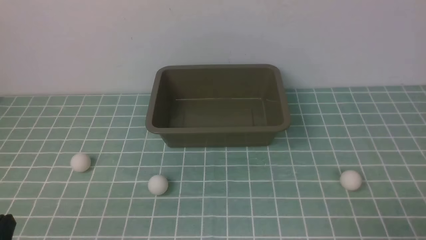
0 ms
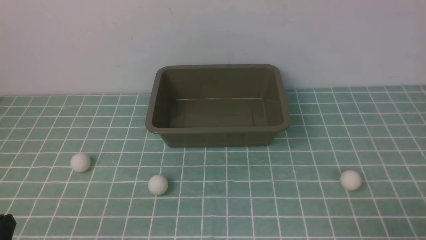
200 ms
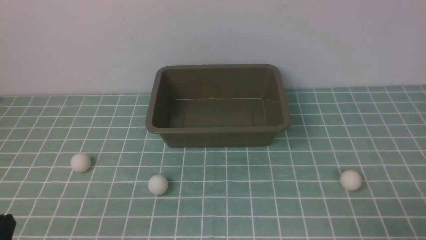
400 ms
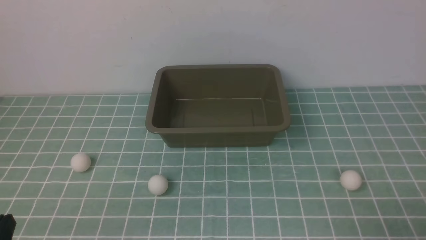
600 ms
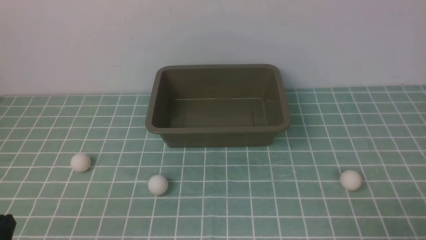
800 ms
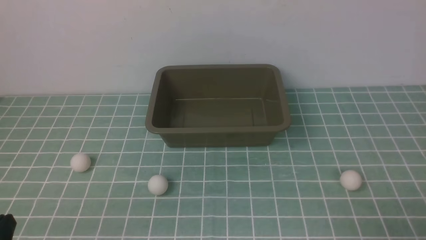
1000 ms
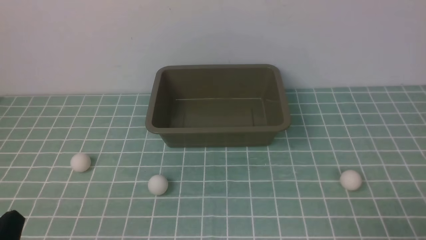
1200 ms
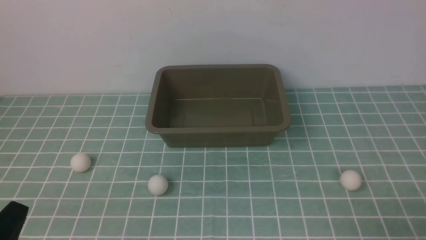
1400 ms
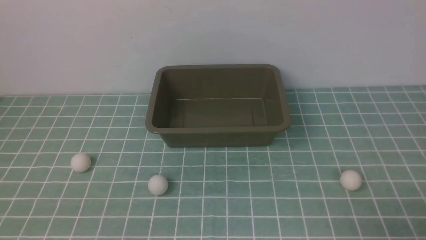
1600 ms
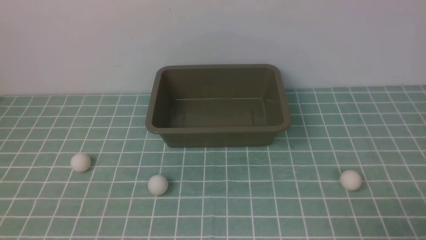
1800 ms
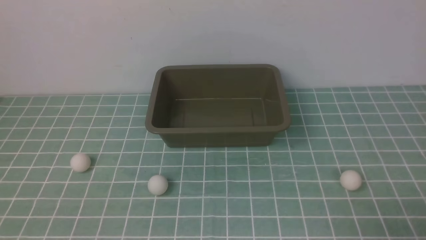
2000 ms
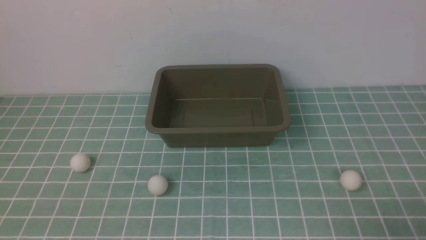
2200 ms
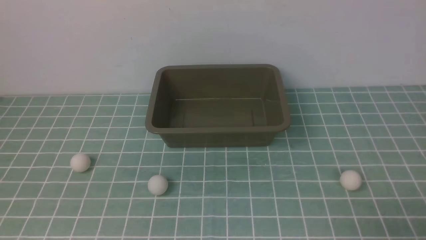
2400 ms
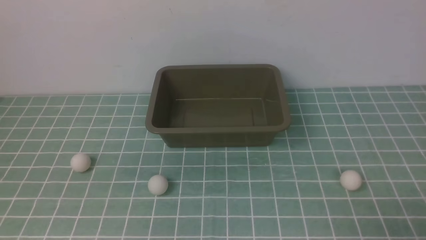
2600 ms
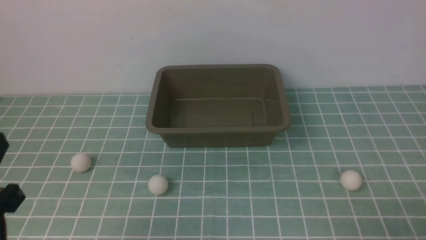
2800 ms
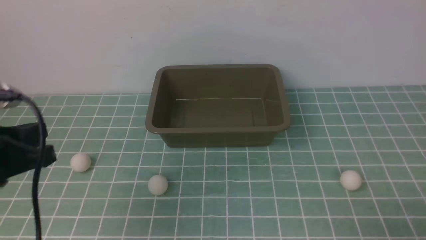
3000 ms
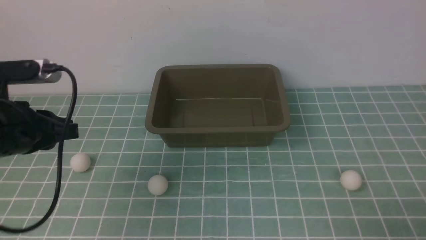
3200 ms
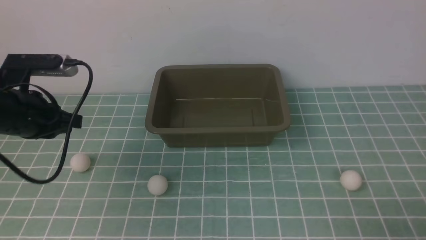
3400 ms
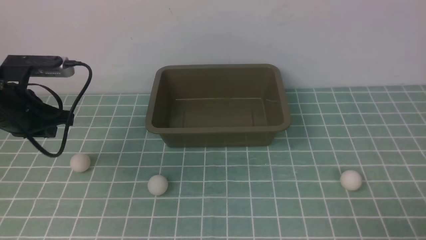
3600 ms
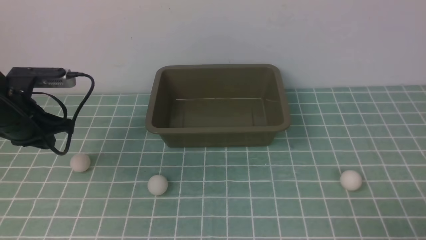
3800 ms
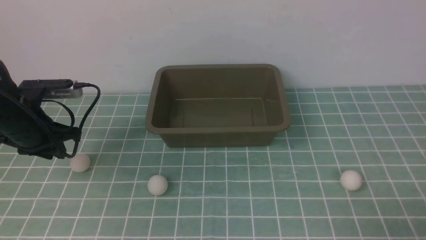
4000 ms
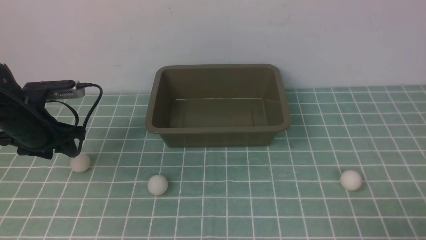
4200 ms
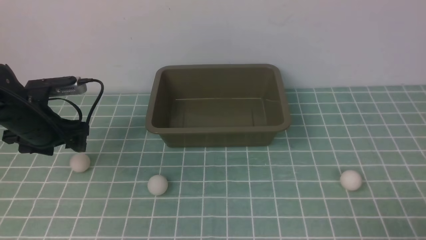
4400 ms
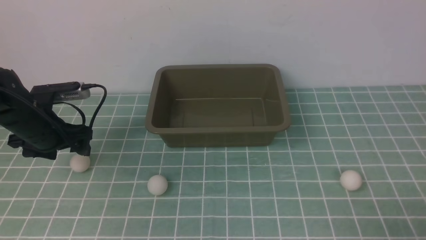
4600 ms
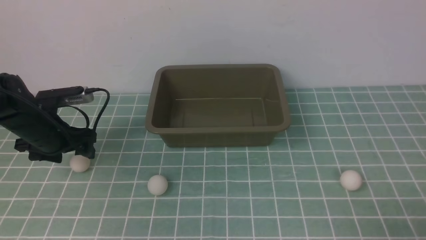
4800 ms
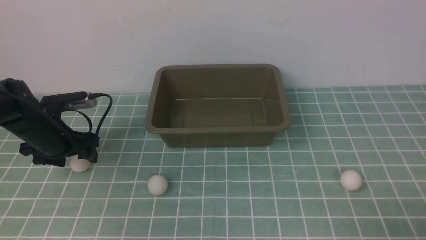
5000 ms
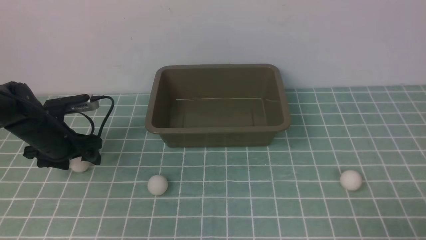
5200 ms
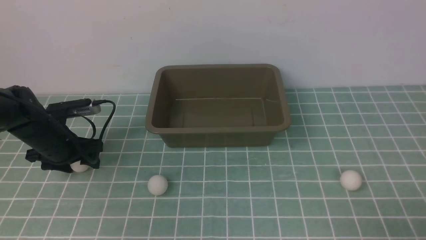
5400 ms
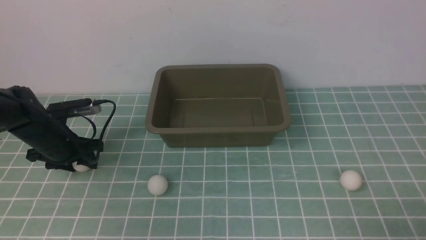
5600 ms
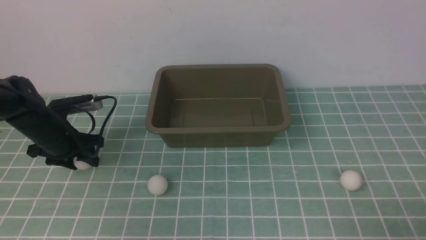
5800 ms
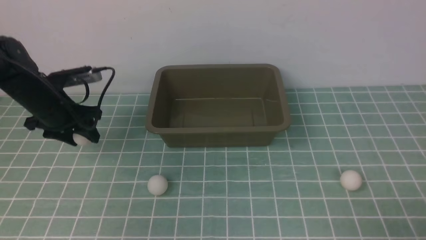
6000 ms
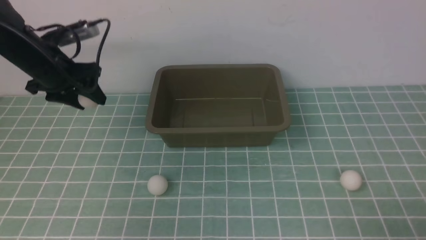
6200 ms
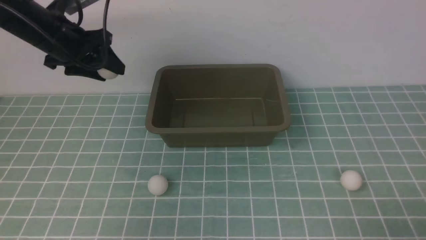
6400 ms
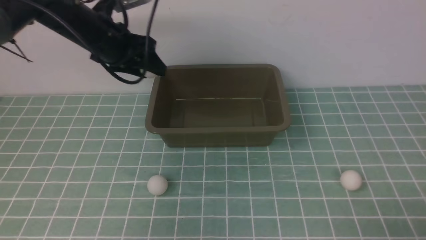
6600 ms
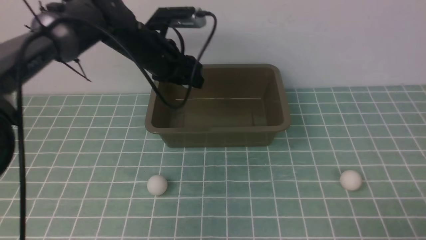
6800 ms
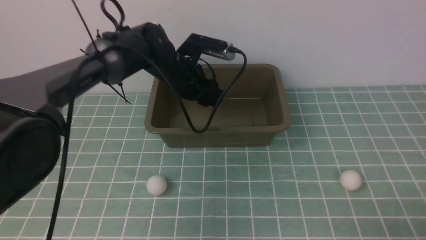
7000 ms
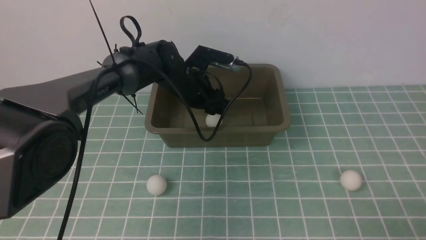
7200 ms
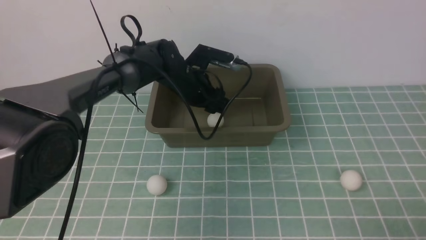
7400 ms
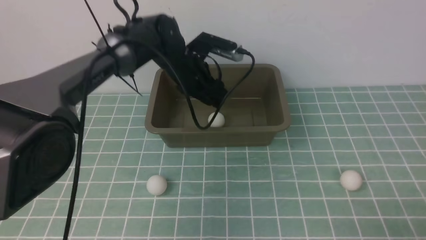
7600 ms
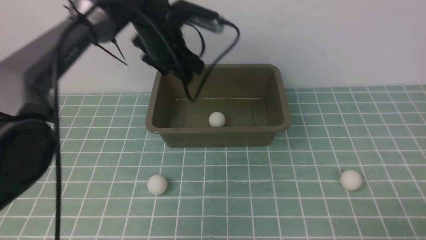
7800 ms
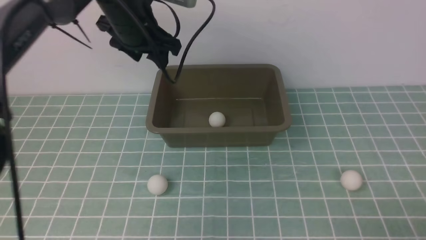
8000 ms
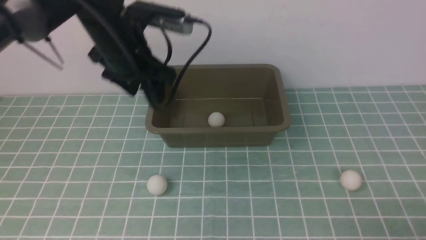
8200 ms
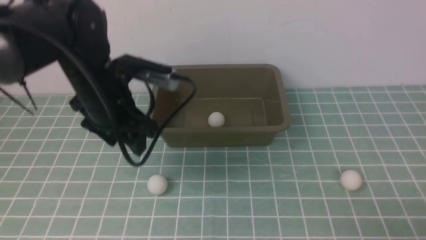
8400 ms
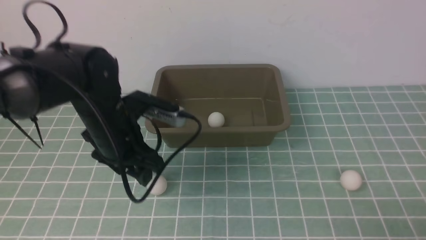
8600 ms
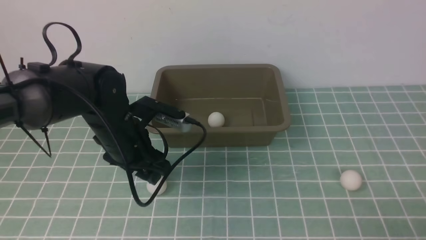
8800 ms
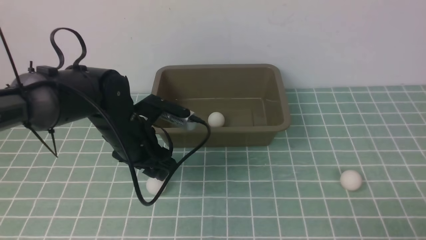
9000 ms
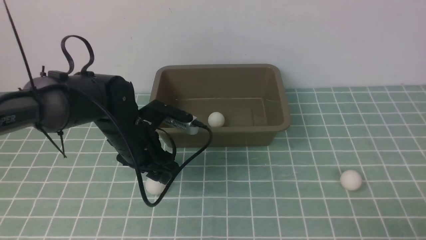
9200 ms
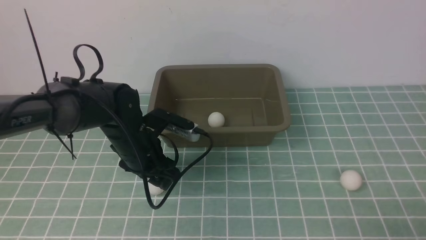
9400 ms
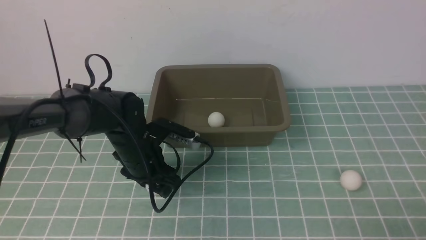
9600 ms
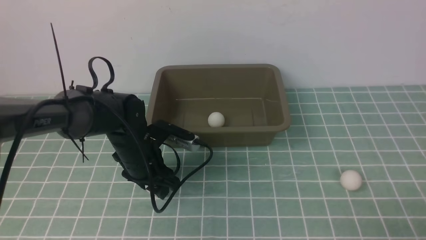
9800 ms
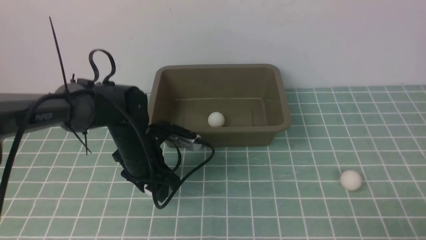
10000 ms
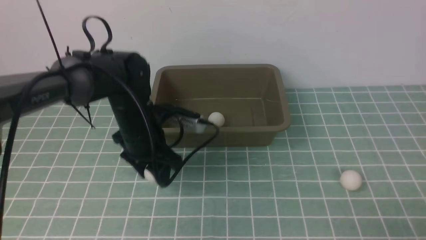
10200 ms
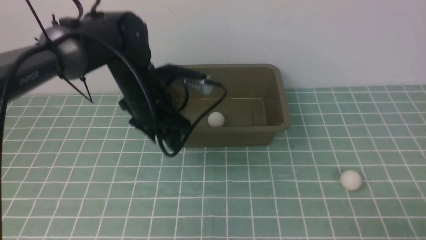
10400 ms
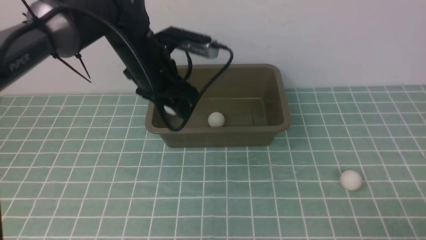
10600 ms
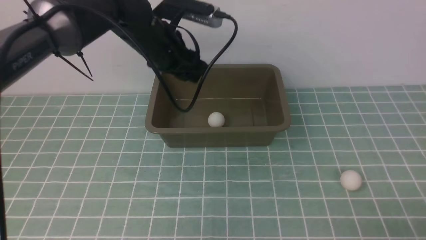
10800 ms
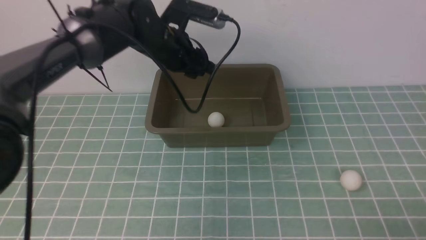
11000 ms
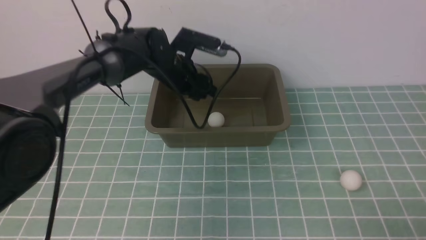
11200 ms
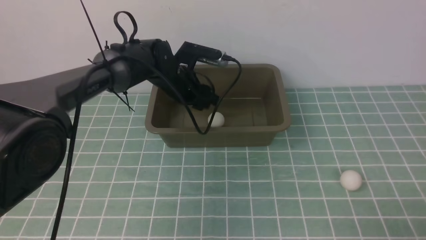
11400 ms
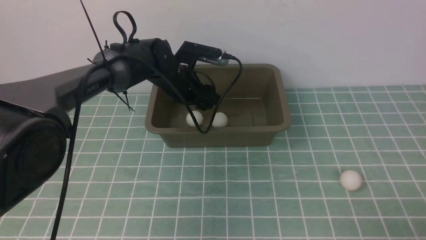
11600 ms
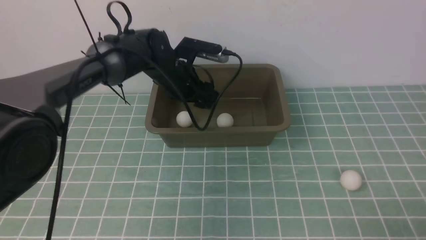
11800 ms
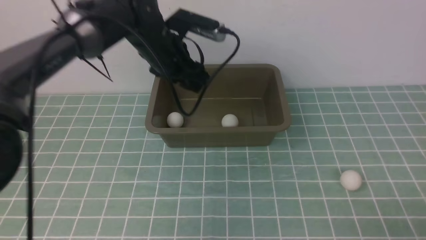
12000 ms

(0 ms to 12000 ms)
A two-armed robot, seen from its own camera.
Step, 0 ms - 6000 ms: use the left arm to clamp the table tennis ball closest to it.
Step, 6200 ms - 7400 ms: use the left arm to put the table tennis ball into the box.
Step, 7600 ms - 10200 ms: use the left arm to clamp the table tennis ball closest to it.
Step, 10400 ms - 11600 ms: use the left arm to put the table tennis ball into the box.
1600 ms - 3000 ms: The left gripper travels forward and upward by roughly 20 cm.
3000 ms - 4400 ms: The left gripper shifts about 20 cm forward and downward, and opens up.
4400 ms - 6000 ms: The left gripper is displaced upward, to the right and forward by about 15 cm, and closes its fingers.
6000 ms - 7600 ms: The left gripper goes about 10 cm to the right and backward.
7600 ms - 9000 ms: The left gripper is displaced downward by roughly 15 cm.
9000 ms - 10400 ms: The left gripper is displaced upward and forward by roughly 15 cm.
10400 ms - 12000 ms: The left gripper is displaced upward and backward by about 15 cm, and closes up.

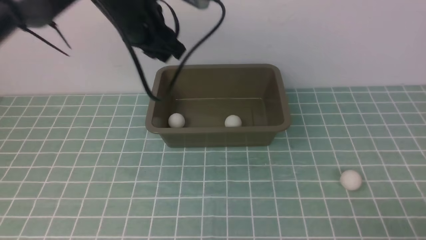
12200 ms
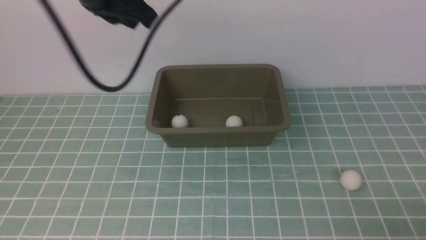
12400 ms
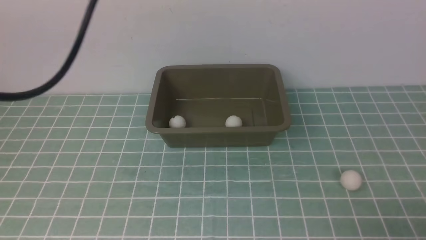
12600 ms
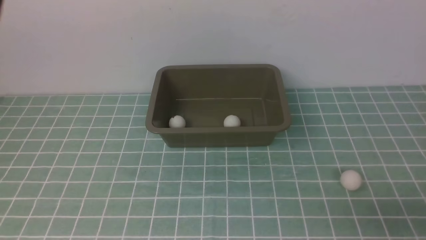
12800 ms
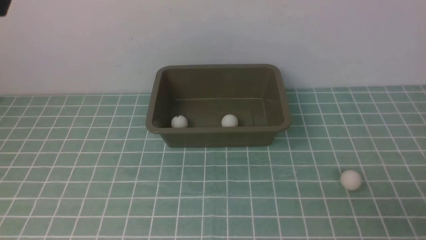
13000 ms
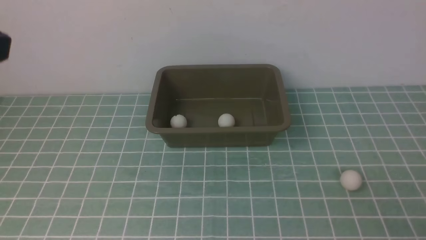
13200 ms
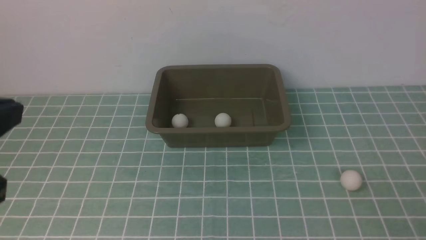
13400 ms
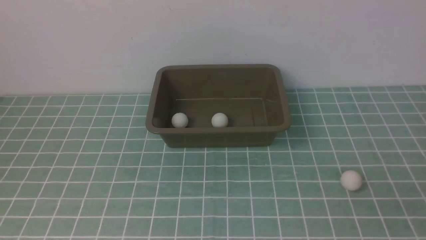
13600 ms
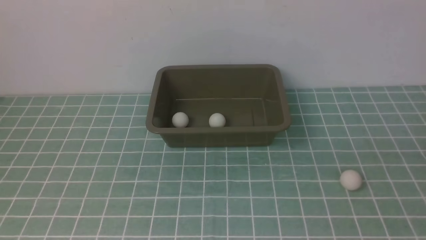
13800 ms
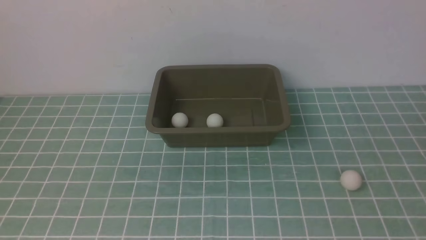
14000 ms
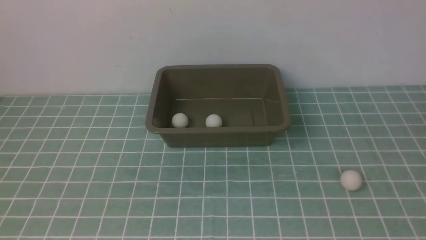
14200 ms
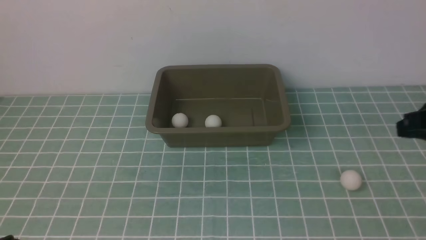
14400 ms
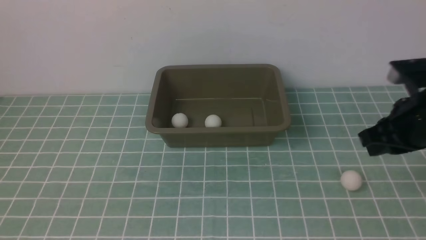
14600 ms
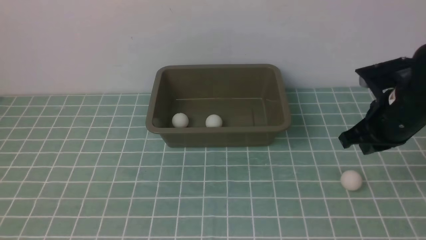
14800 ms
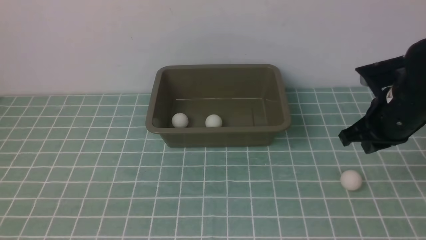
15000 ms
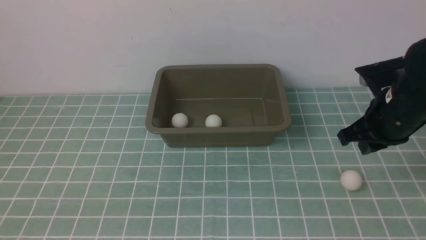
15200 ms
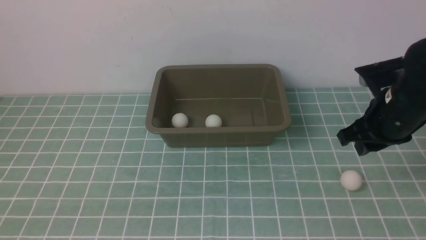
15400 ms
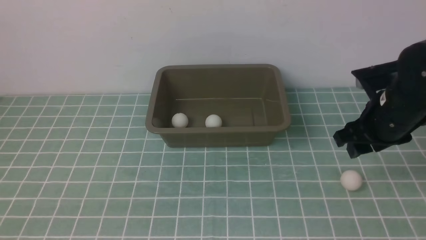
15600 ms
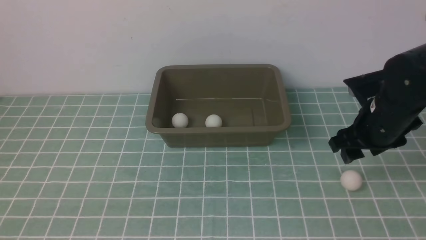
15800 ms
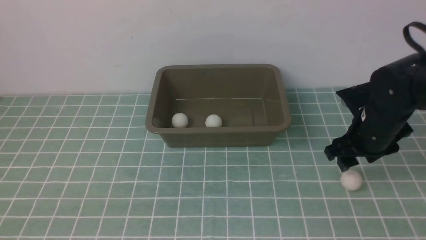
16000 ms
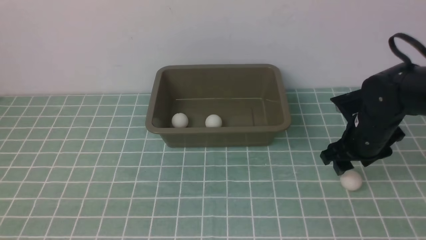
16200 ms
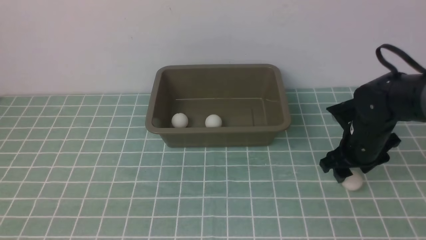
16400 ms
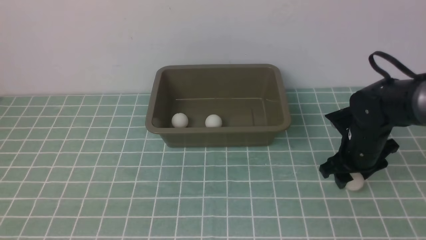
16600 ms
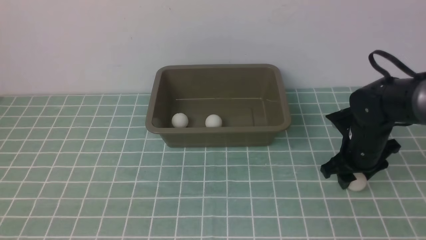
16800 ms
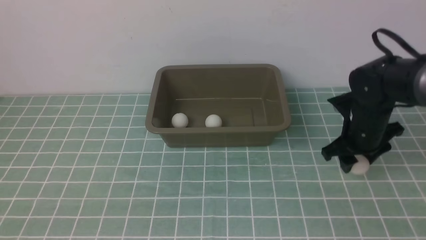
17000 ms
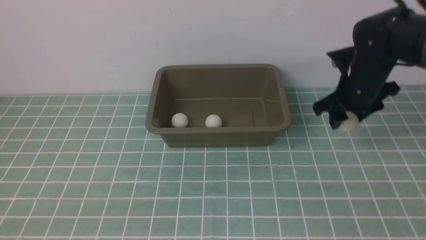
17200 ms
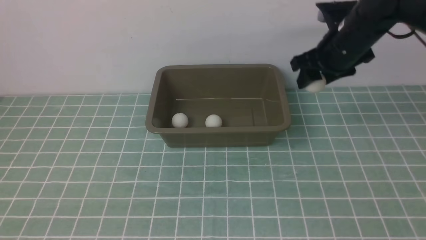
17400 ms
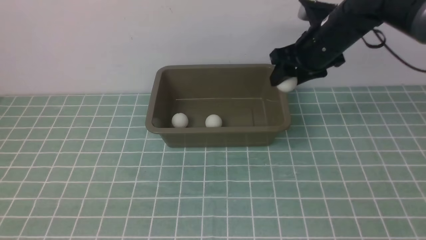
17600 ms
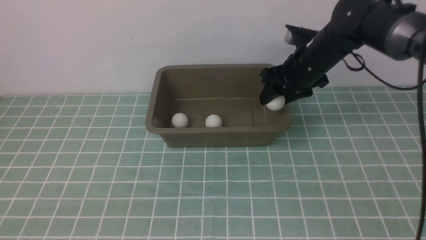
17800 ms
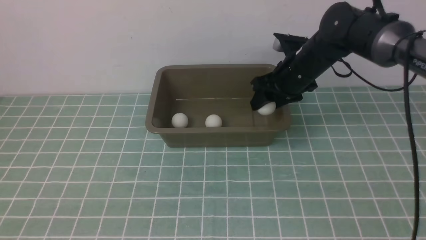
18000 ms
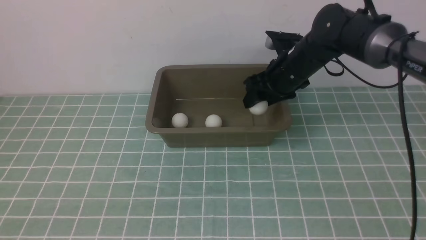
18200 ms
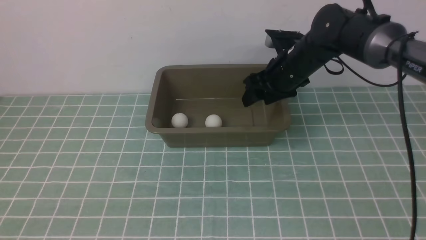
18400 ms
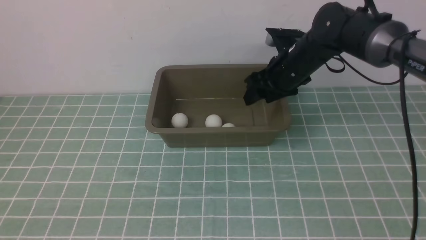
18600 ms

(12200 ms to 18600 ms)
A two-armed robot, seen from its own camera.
Step, 12200 ms - 17200 ms: use the right arm to clamp the table tennis ball closest to it.
Step, 17400 ms - 18600 ms: use the right arm to put the table tennis ball into the box.
12200 ms - 13800 ms: The right gripper travels upward by some 15 cm, while the left gripper shifts roughly 30 cm backward.
13800 ms - 15400 ms: The right gripper heads forward, covering roughly 25 cm, and opens its fingers.
15400 ms - 17000 ms: The right gripper heads forward, covering about 5 cm, and reaches roughly 10 cm downward, then returns.
17000 ms - 18600 ms: The right gripper is displaced to the left and forward by roughly 10 cm.
